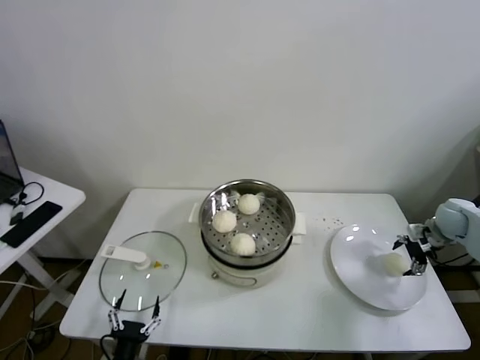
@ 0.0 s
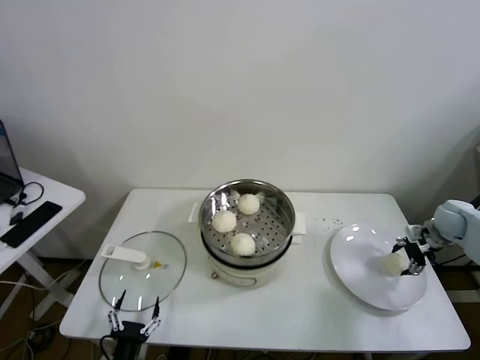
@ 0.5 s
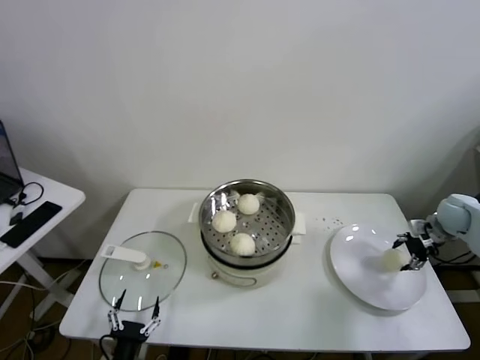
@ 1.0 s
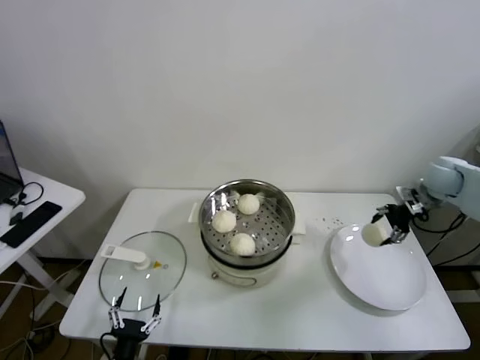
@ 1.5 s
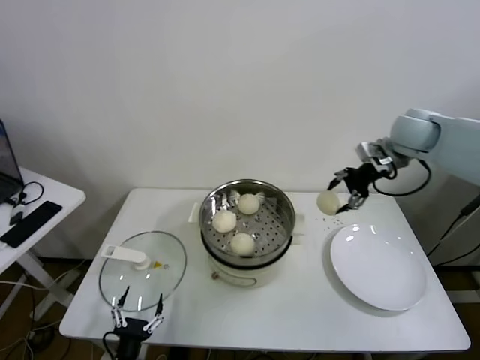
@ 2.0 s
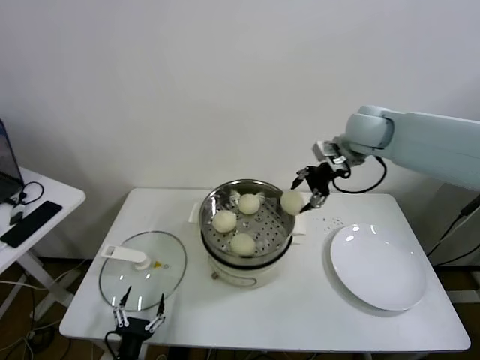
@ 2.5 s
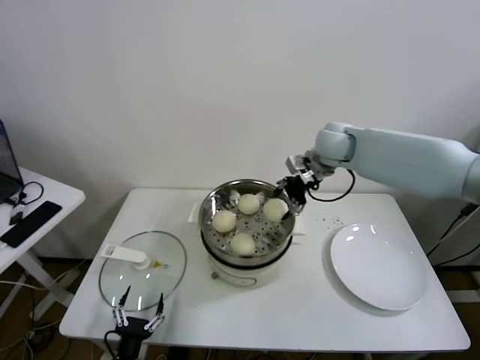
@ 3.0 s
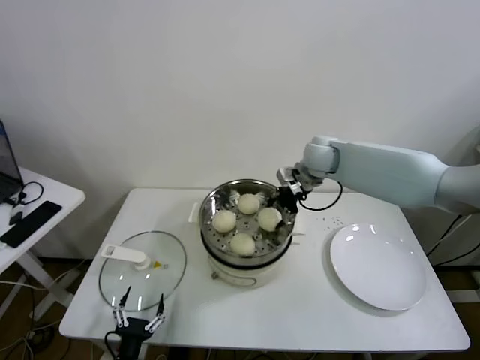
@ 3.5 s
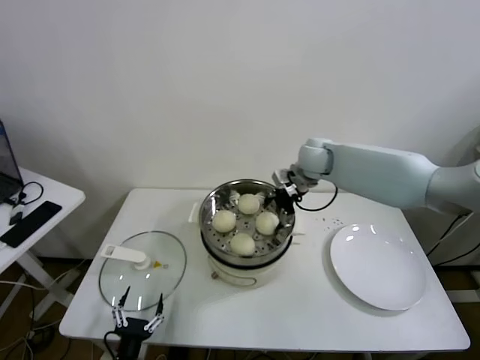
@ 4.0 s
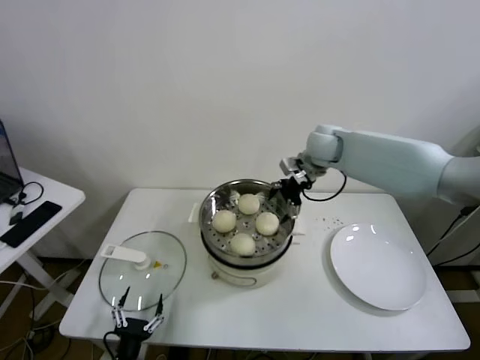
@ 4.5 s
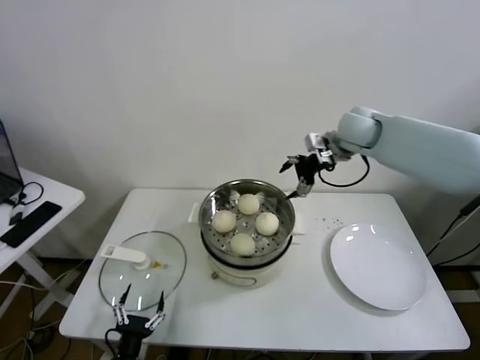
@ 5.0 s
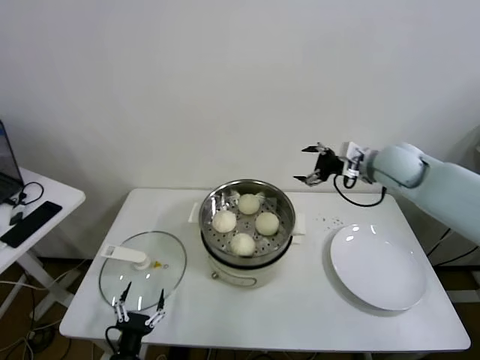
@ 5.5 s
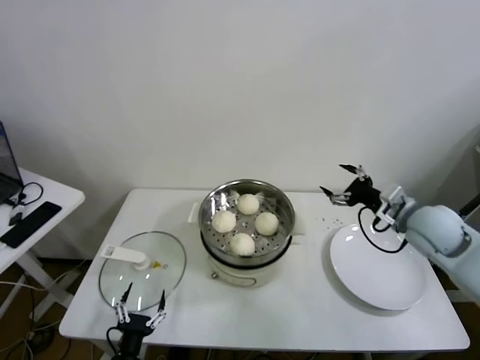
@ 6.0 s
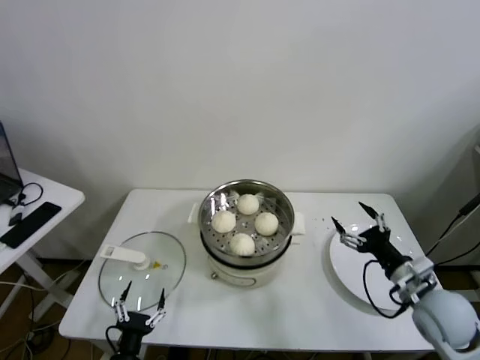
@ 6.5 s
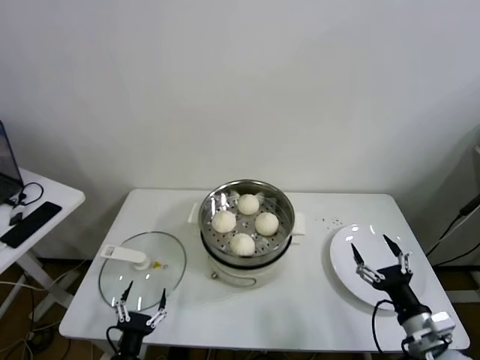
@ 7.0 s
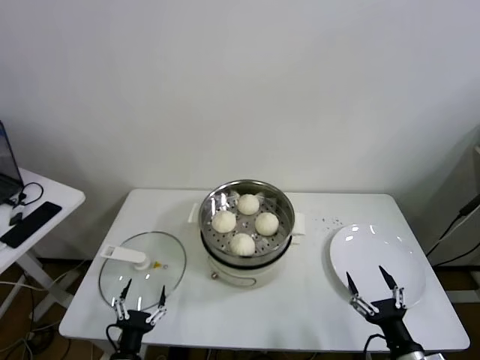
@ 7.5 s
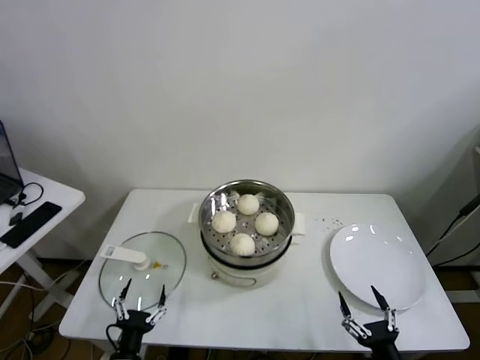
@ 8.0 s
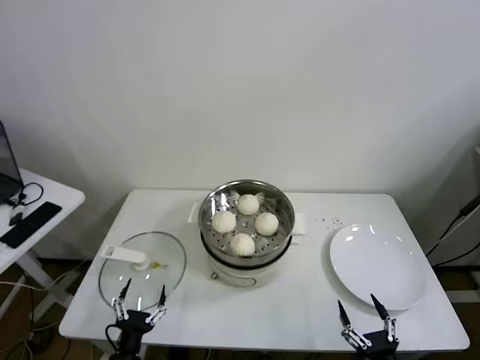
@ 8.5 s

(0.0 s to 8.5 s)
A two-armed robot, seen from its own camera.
Task of the whole recording: take steamed baozi put them in steamer.
Step, 1.0 s - 4.0 s: Place the baozi on the steamer with right gripper.
0.0 s - 2.0 s: The right gripper moves upward and to the left, roughly 30 cm, and closes up.
2.0 s - 4.0 s: The right gripper travels to the left and downward by roughly 20 cm.
4.0 s - 6.5 s: The right gripper goes some 40 cm backward, to the right and downward.
6.5 s - 8.5 s: The right gripper goes approximately 25 cm backward and downward.
